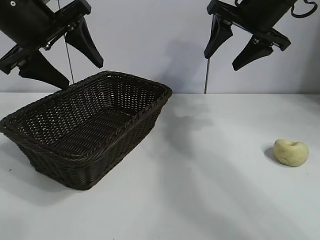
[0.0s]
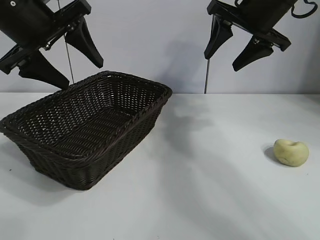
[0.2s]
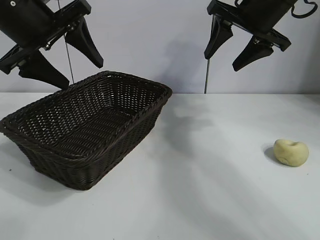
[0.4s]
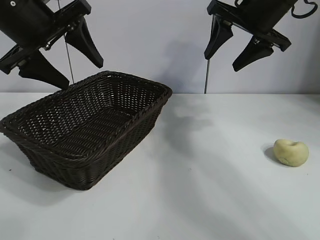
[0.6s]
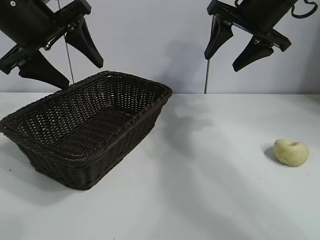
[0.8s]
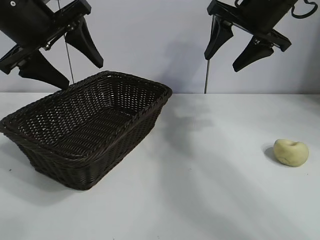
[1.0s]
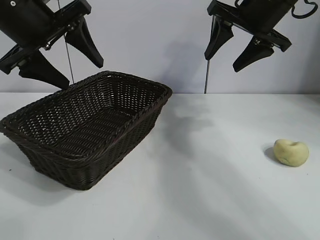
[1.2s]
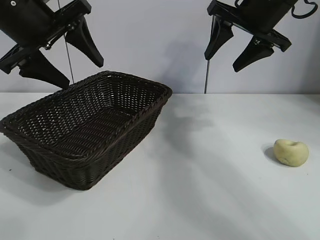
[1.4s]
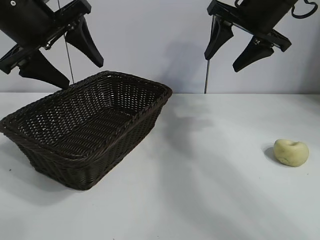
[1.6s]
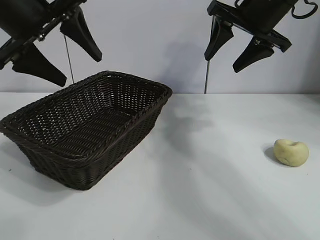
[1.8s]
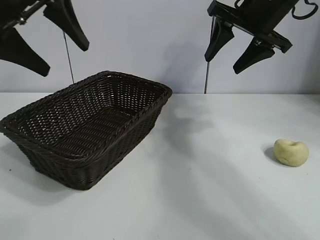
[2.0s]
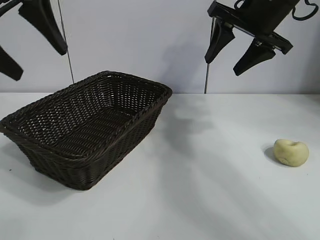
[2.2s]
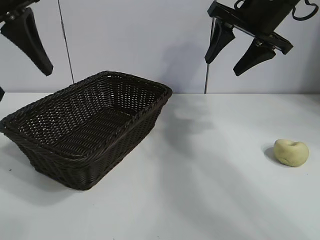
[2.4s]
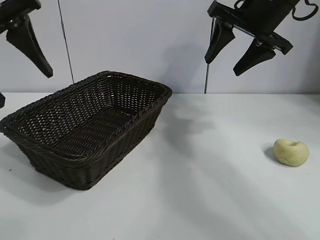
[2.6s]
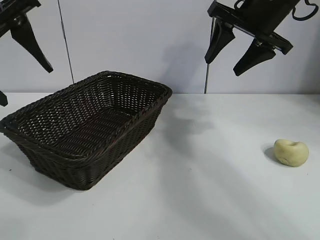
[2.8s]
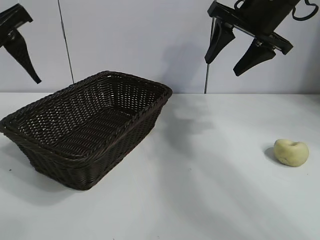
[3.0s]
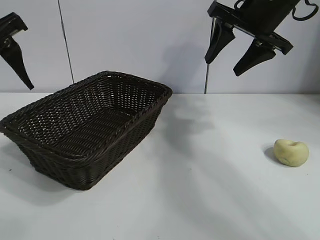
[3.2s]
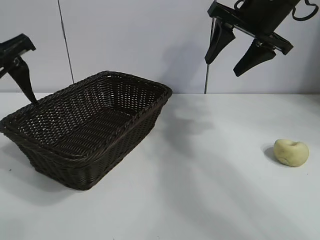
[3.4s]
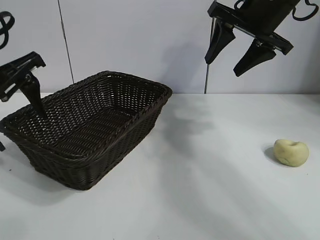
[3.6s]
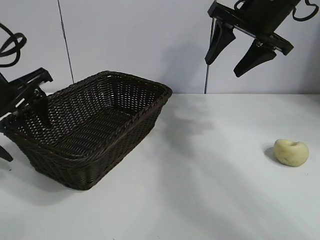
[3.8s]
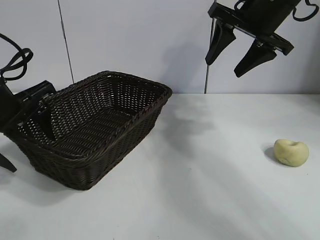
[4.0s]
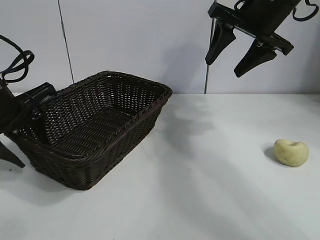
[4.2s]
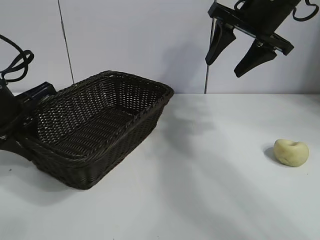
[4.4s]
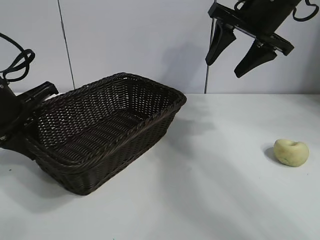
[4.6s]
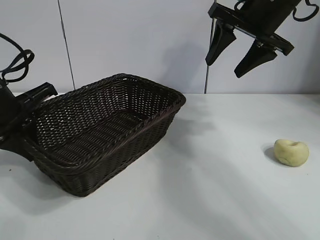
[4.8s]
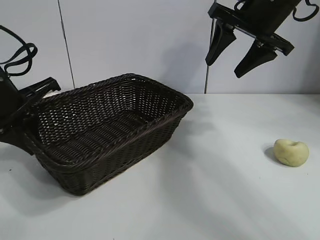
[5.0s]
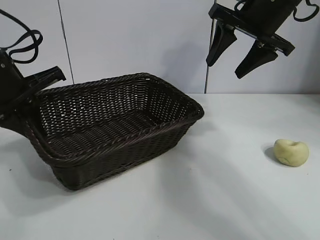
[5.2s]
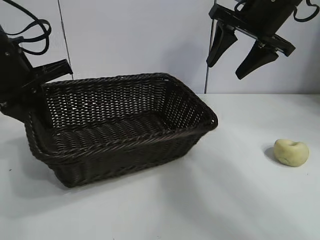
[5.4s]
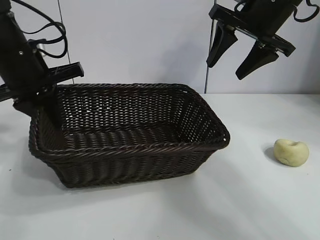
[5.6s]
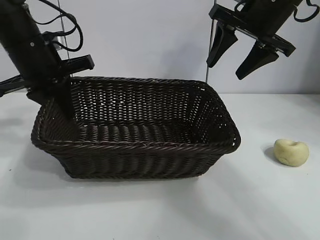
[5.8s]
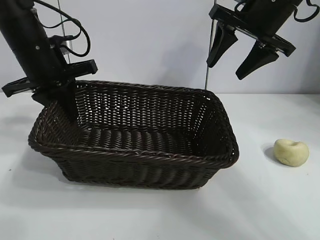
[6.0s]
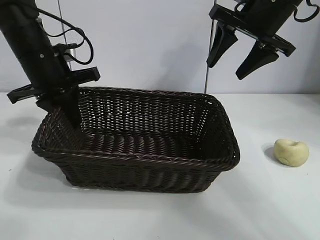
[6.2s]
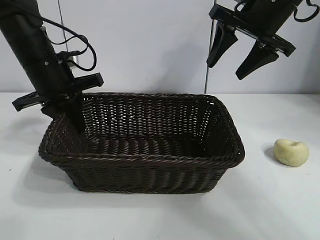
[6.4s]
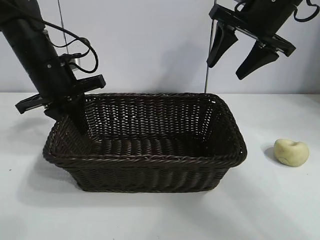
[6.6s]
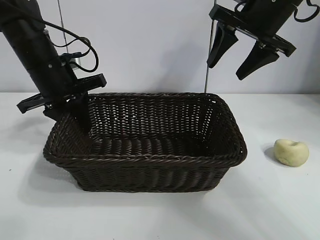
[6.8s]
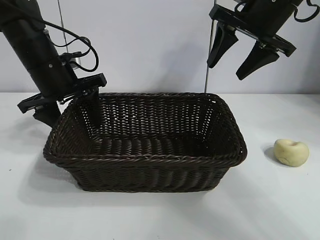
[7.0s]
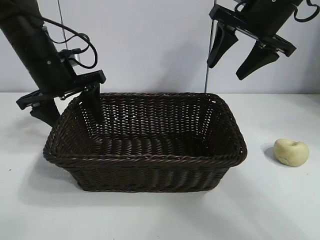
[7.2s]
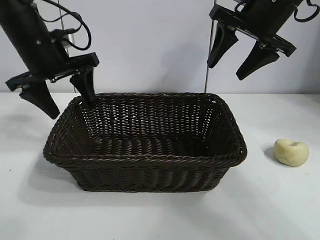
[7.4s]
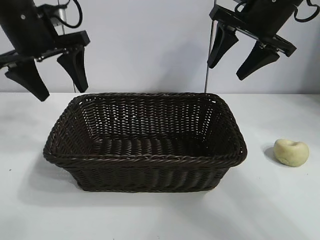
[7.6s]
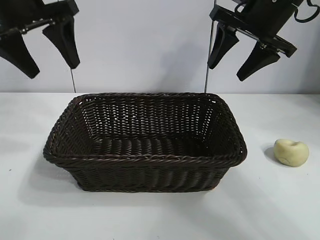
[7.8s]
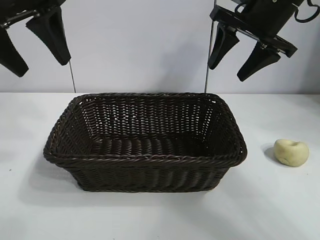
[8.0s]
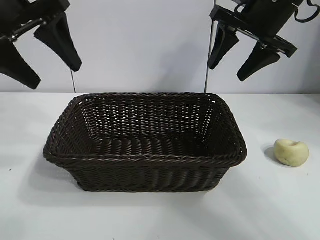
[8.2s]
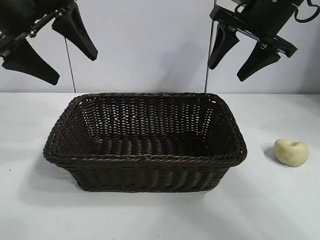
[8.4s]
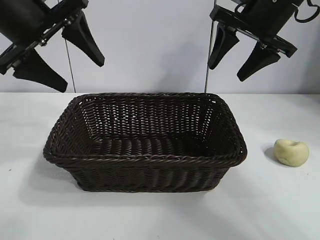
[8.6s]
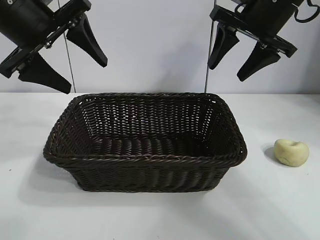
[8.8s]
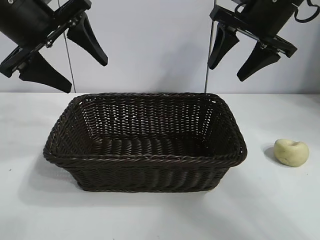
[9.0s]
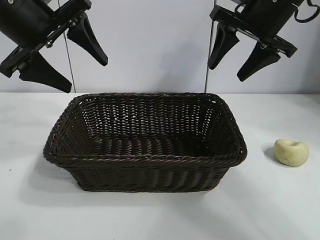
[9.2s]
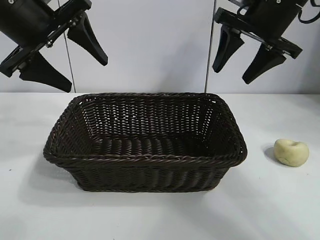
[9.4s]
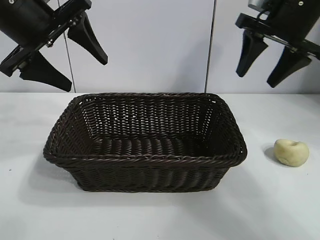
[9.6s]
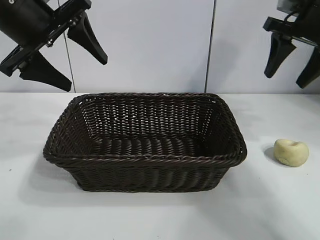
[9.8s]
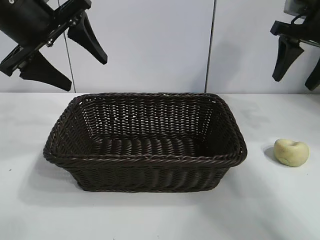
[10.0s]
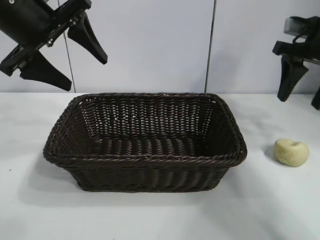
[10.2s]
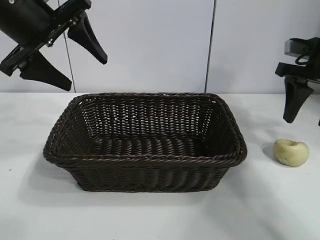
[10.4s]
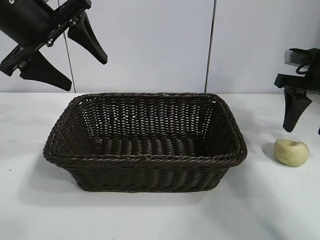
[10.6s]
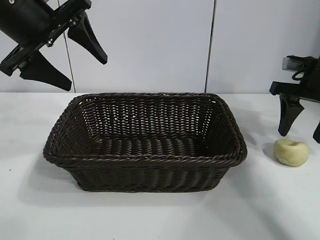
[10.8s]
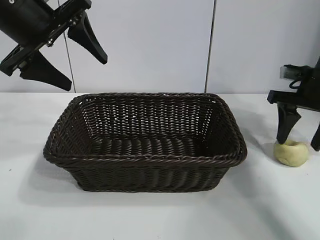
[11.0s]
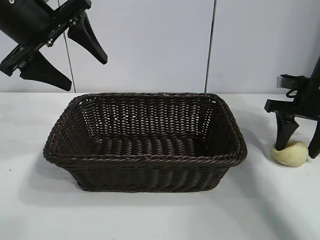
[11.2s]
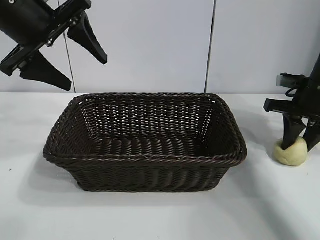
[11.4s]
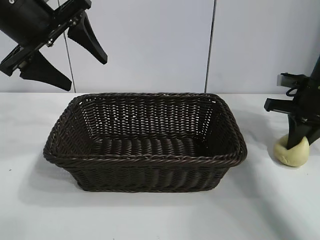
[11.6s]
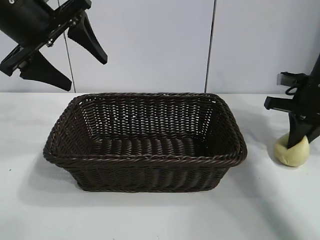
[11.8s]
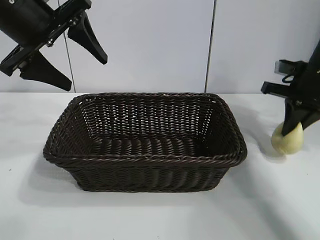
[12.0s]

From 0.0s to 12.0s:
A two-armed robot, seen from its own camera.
Task of the whole recording: pick up the egg yolk pastry and put it into the basket.
Step, from 0.0s to 4.6s: Grasp the basket with left gripper.
Step, from 4.8s to 7.2s: Place the basket in the center of view with left gripper.
Step, from 7.6s to 11.4s: Grasp egg yolk pastry with right gripper.

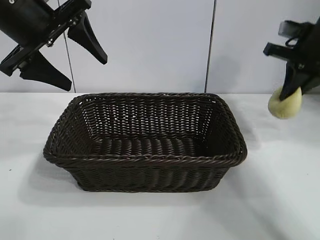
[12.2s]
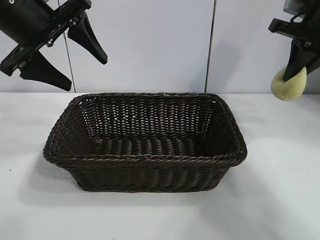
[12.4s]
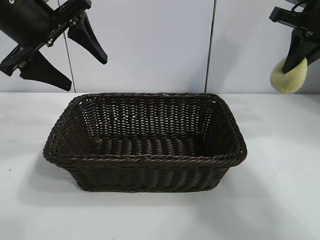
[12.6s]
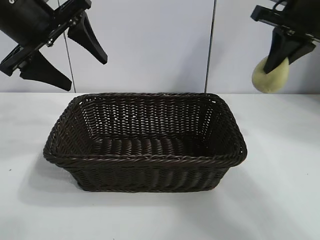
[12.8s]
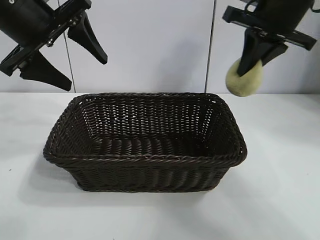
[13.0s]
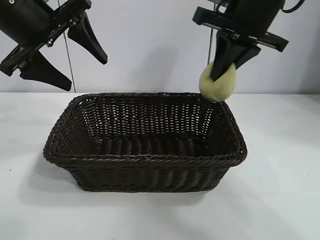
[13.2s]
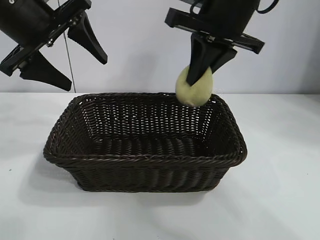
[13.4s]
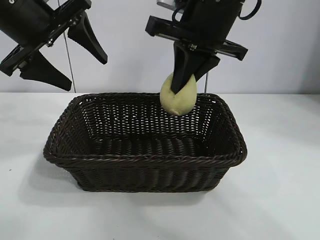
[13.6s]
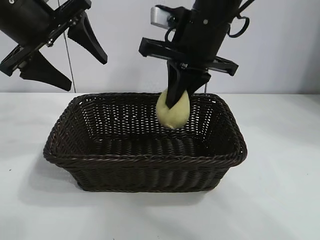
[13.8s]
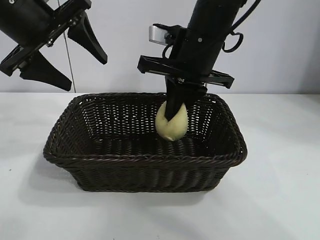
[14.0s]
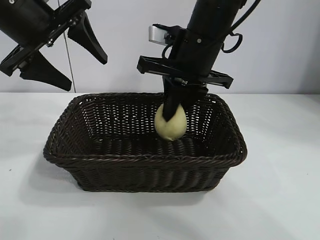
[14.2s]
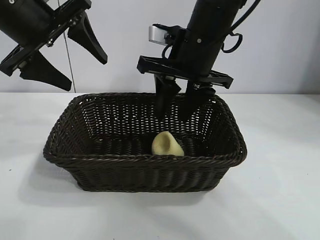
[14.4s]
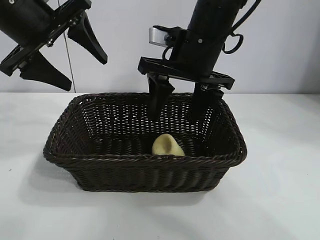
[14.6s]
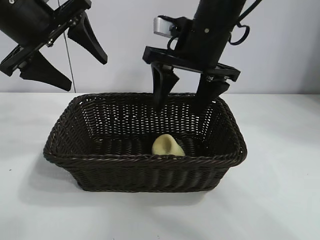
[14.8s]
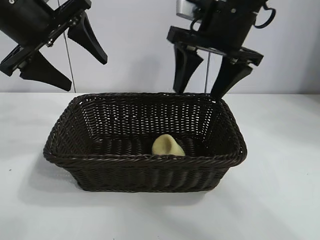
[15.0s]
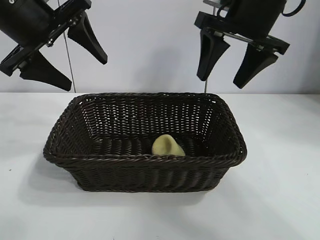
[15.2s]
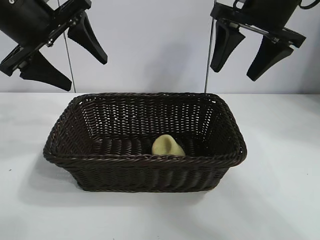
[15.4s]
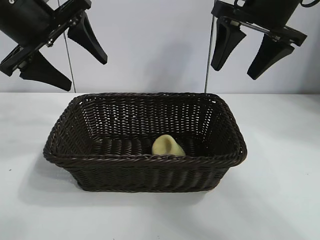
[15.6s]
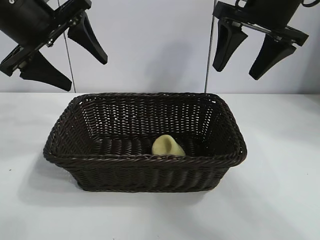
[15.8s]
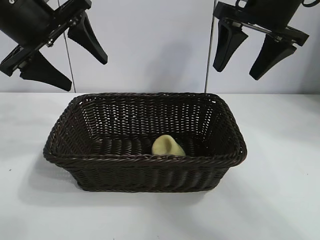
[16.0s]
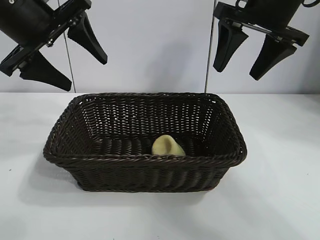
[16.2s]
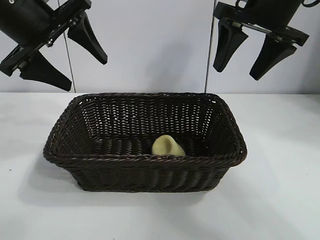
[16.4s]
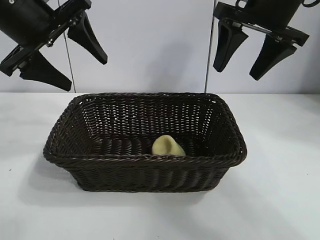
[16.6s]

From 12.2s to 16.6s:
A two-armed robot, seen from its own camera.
Task of the whole recording: pick up the egg yolk pastry and put it into the basket.
Step, from 12.2s to 14.4s: Place the egg yolk pastry in the basket with right gripper.

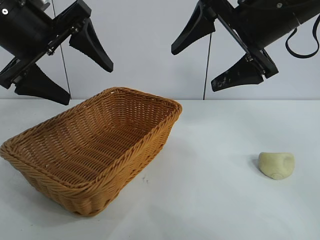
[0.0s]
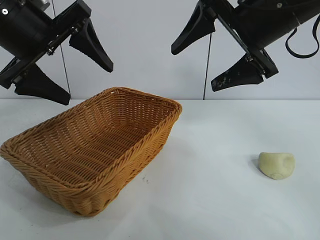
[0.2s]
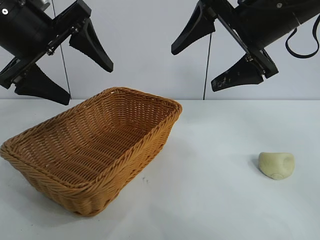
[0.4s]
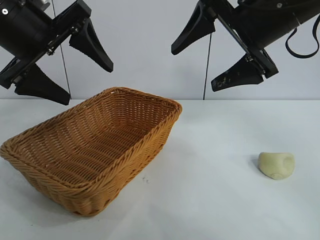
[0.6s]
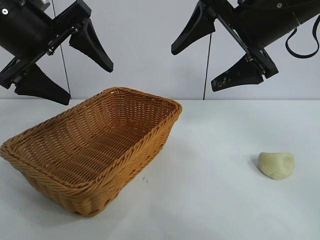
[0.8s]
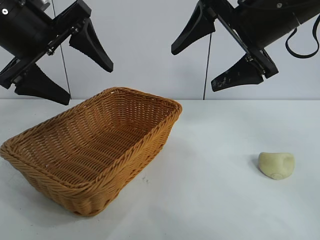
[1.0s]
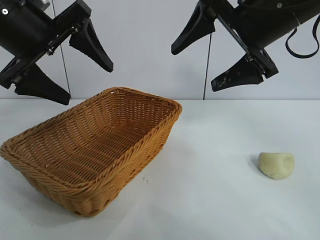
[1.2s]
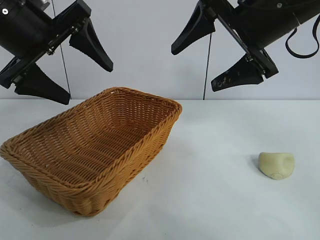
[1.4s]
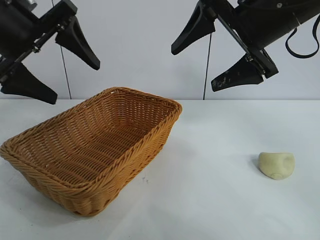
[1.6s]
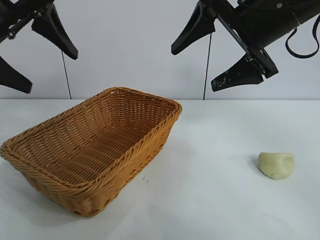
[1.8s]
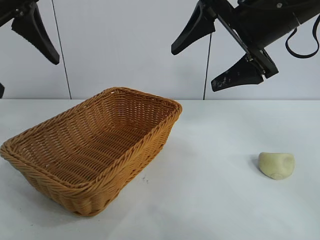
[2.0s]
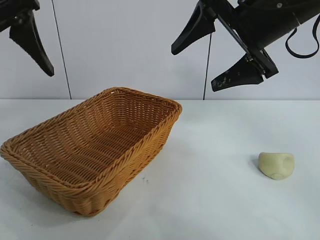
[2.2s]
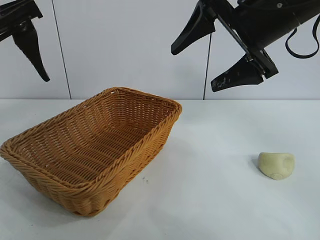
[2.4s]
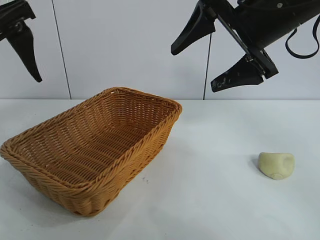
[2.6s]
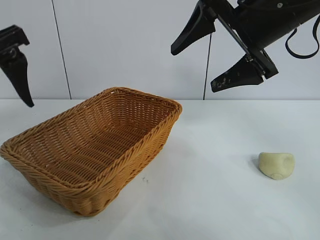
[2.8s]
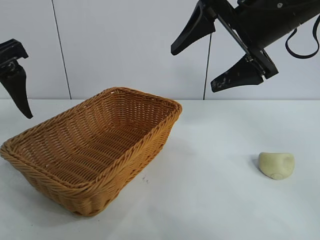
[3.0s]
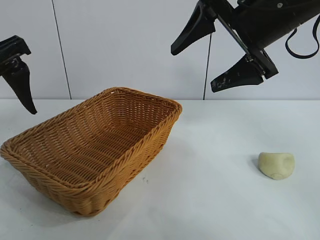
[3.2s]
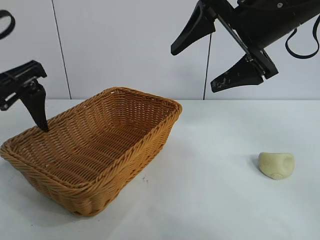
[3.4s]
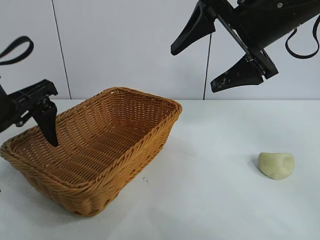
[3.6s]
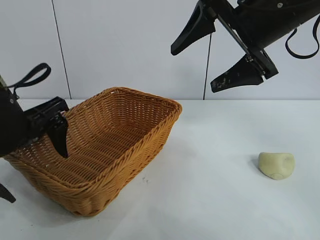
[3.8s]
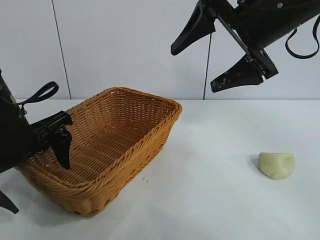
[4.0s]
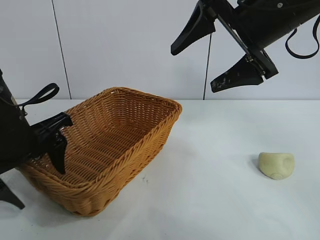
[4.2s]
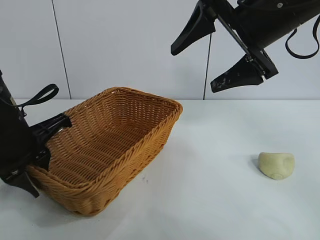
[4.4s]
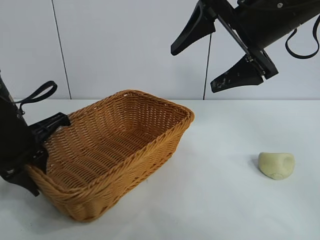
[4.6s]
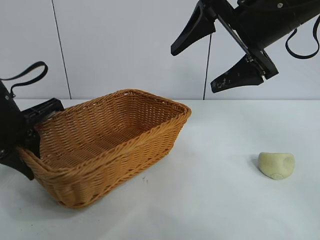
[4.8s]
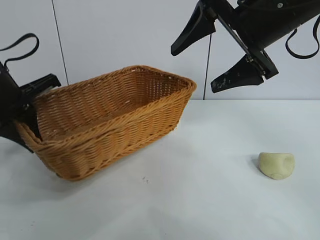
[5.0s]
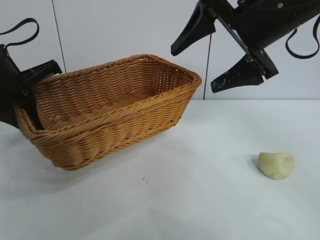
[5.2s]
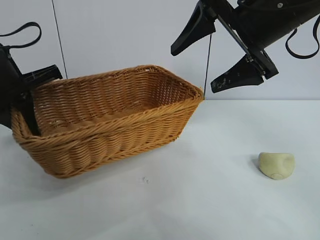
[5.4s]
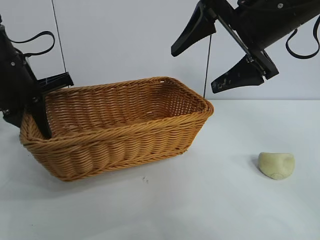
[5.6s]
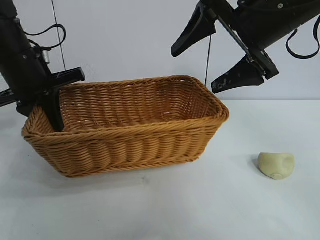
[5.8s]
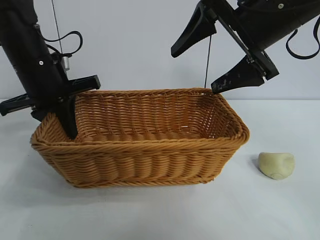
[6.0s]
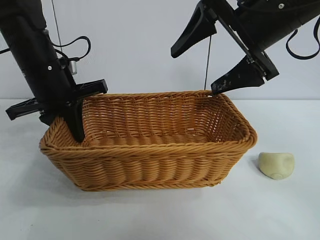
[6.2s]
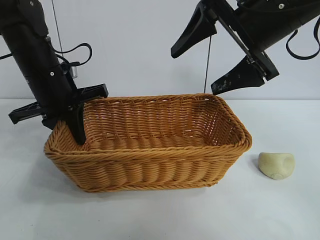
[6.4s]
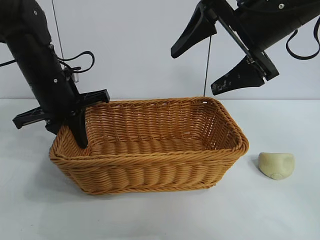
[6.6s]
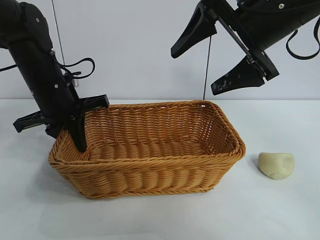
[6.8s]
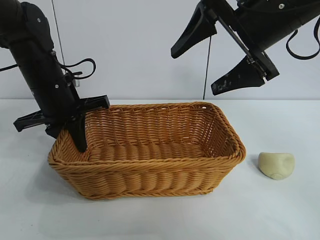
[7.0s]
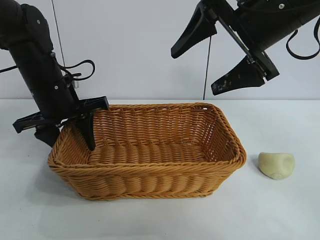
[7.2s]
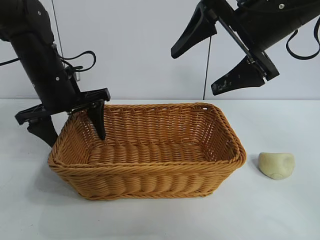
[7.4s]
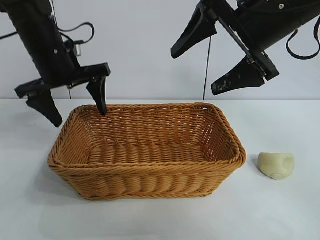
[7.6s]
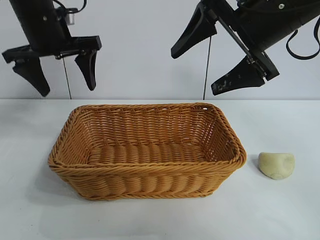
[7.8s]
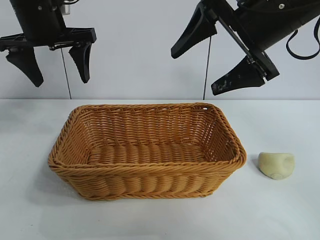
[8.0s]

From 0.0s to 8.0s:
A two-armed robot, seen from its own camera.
Task of the whole recording: pick up the egg yolk pastry and put it into the basket.
Step, from 1.4s to 4.4s: Grasp the basket with left gripper.
Step, from 4.6s to 7.2s: Place the basket in the center of view with left gripper.
